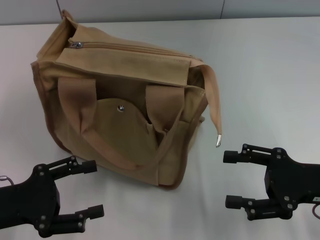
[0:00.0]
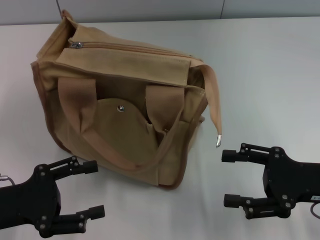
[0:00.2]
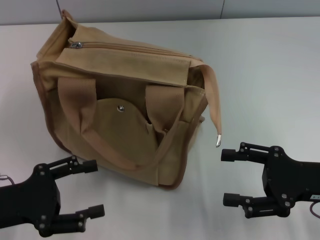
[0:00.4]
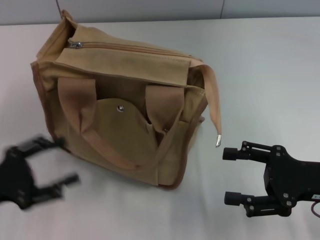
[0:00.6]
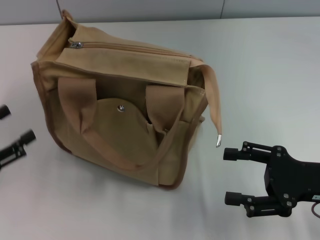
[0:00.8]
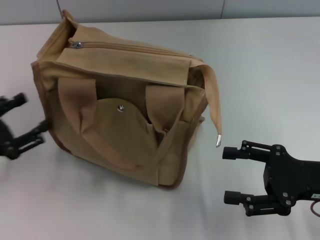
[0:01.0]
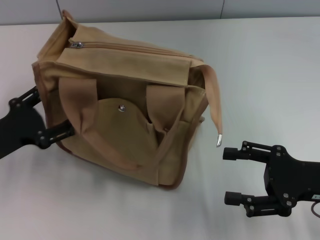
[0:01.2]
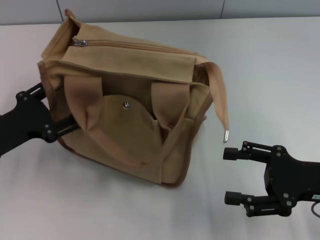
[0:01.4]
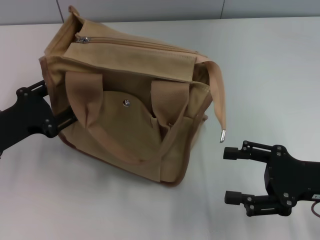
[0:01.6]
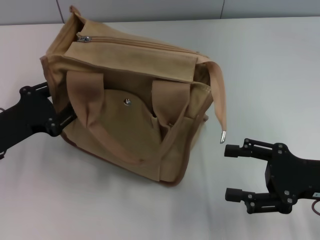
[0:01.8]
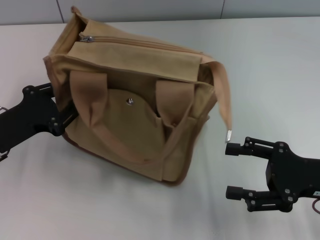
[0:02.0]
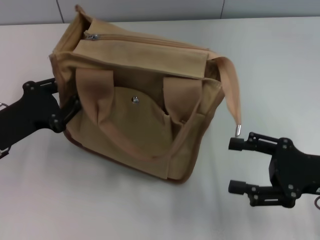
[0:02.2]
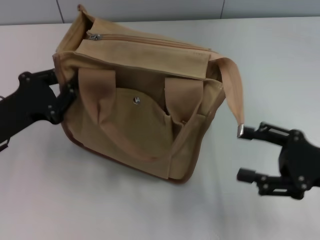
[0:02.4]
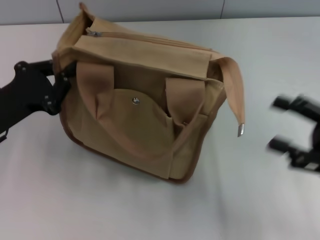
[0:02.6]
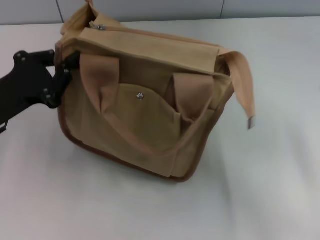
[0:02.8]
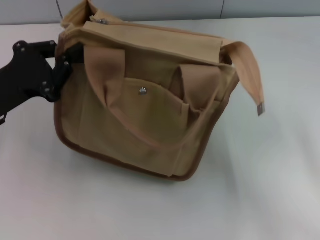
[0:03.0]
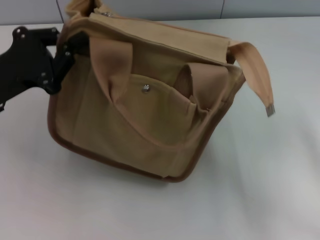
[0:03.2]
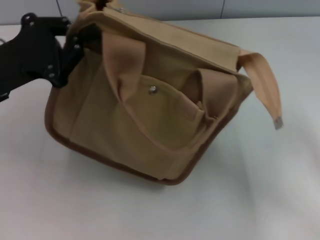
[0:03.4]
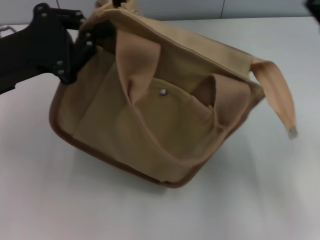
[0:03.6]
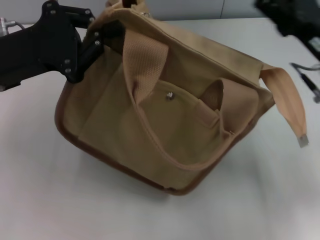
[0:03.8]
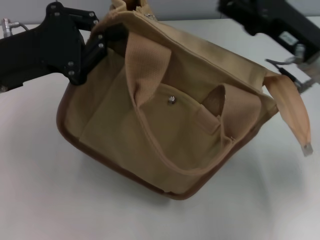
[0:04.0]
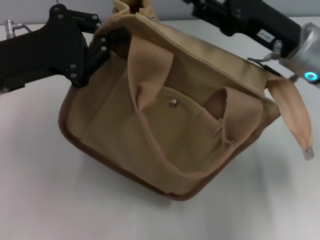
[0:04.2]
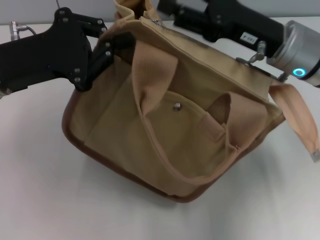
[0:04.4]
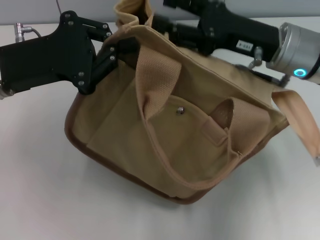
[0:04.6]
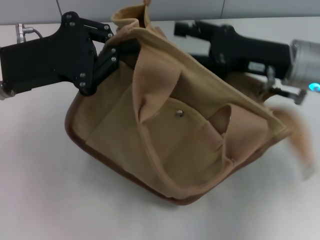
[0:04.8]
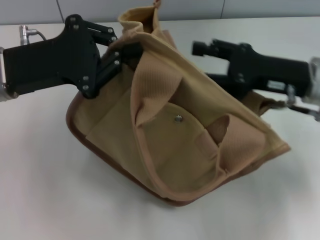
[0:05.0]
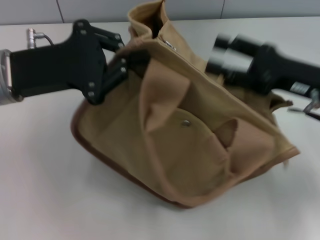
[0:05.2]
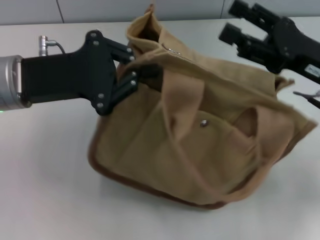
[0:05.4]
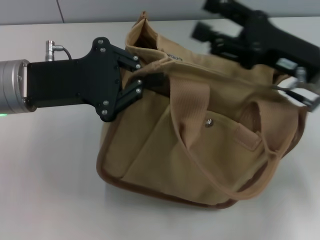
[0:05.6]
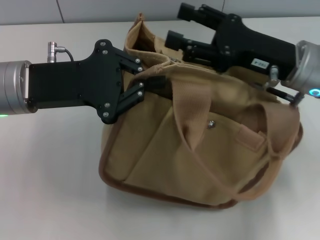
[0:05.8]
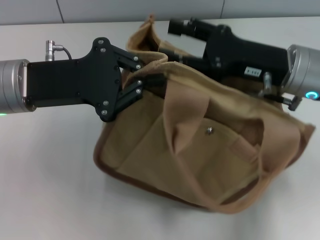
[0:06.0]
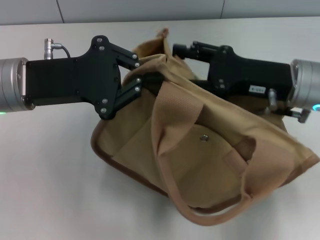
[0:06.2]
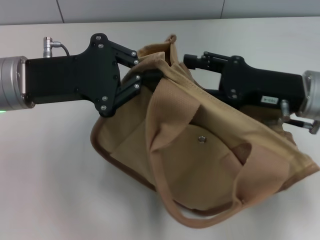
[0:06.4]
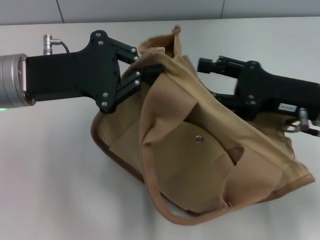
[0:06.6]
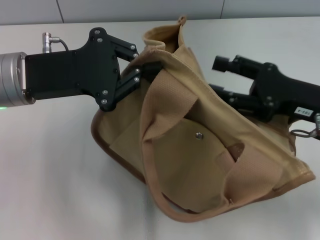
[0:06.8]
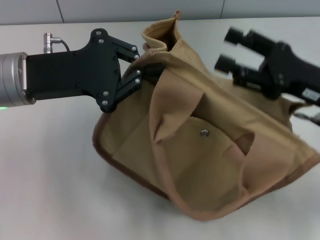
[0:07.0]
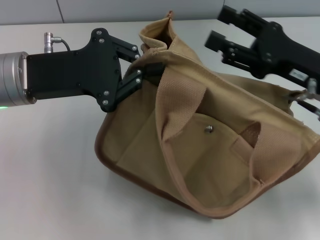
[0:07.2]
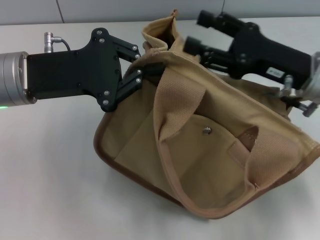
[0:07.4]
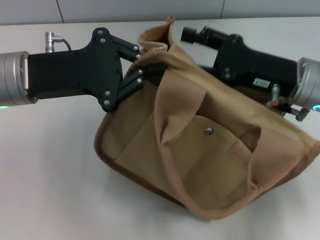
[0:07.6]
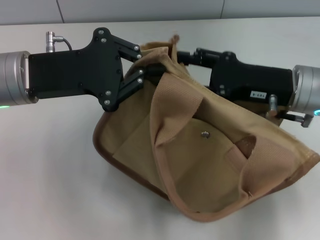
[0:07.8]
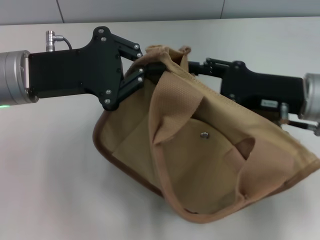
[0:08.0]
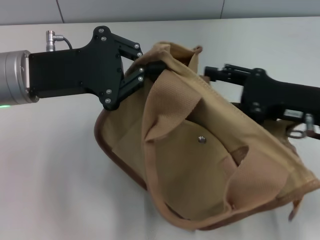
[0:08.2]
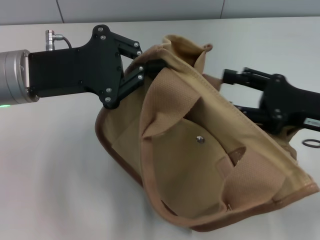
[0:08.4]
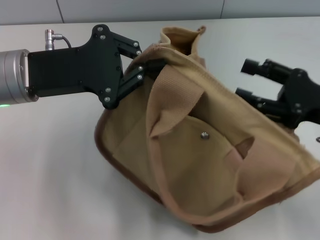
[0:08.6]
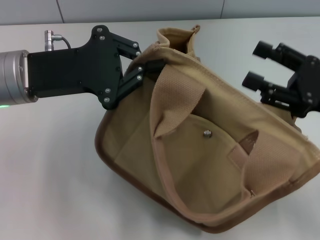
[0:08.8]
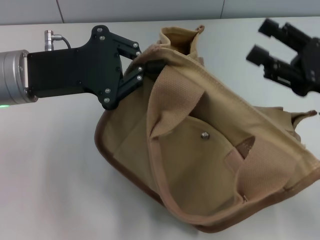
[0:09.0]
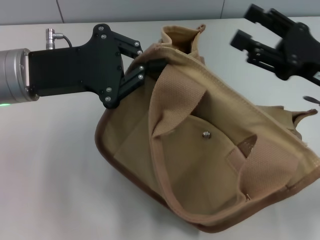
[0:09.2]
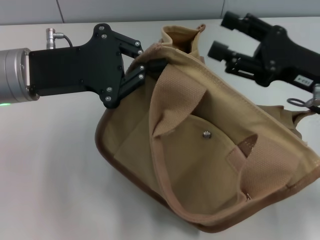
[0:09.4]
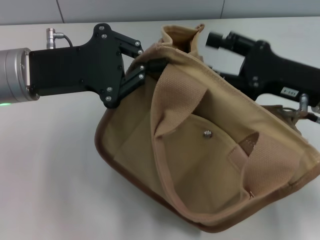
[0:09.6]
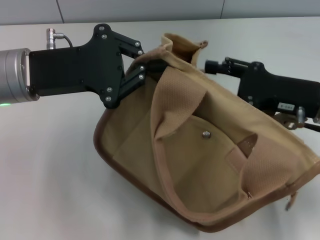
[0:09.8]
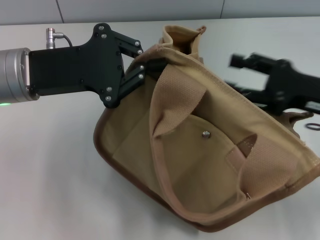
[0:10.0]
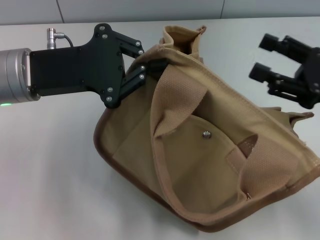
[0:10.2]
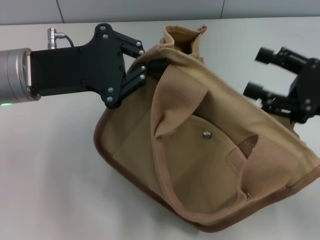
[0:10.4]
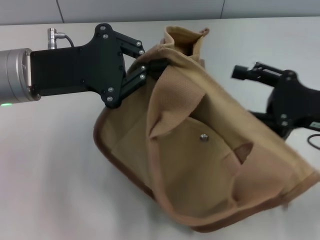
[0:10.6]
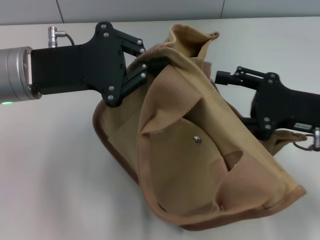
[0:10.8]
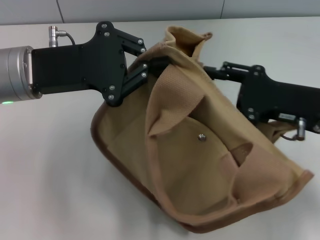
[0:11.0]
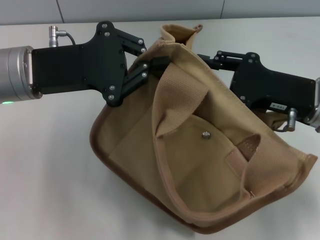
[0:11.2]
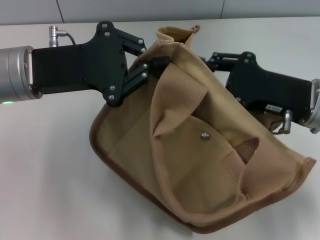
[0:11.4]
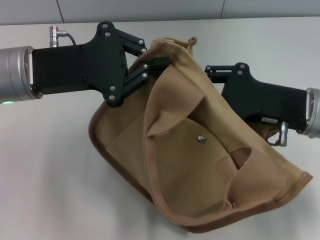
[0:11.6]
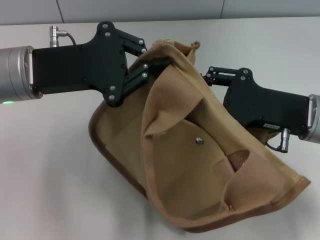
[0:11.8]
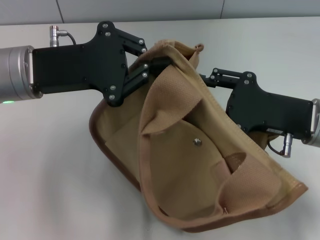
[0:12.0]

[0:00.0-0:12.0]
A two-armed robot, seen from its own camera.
0:00.0 to 0:01.6: The left gripper shifts roughly 5 cm forward.
0:01.6 to 0:03.0: The right gripper is displaced to the right by roughly 5 cm. The left gripper changes place by about 5 cm, and closes.
0:03.0 to 0:04.4: The left gripper goes roughly 5 cm upward, while the right gripper heads to the left and forward, covering some 20 cm.
0:07.6 to 0:09.0: The right gripper heads to the right, covering approximately 5 cm.
0:10.4 to 0:12.0: The right gripper heads to the left, covering roughly 5 cm.

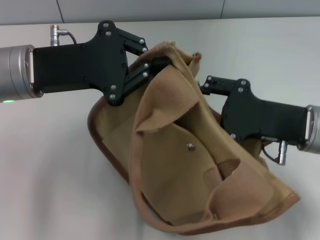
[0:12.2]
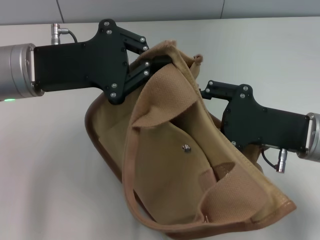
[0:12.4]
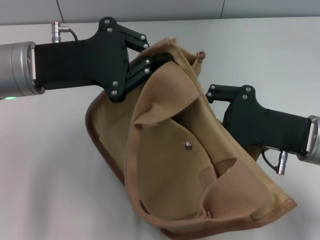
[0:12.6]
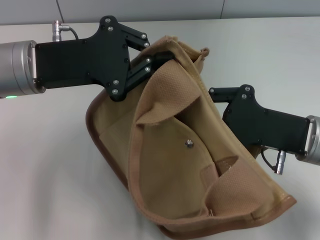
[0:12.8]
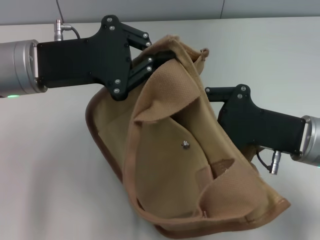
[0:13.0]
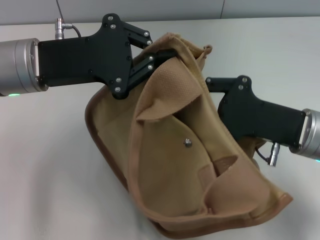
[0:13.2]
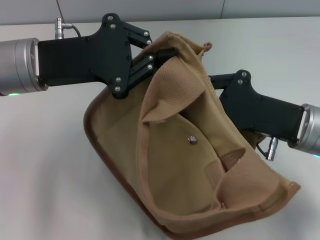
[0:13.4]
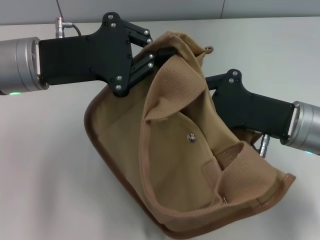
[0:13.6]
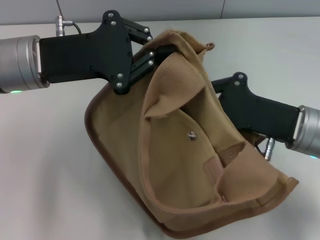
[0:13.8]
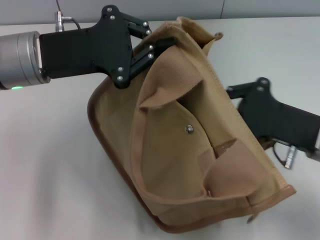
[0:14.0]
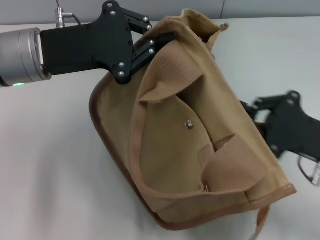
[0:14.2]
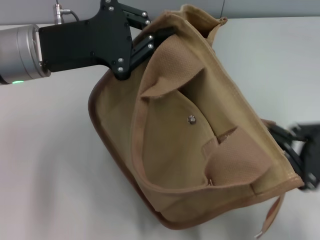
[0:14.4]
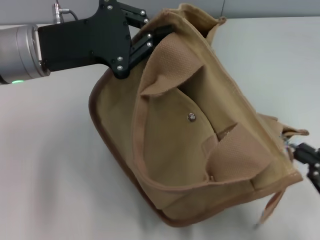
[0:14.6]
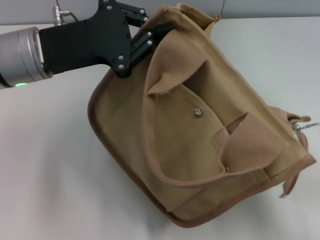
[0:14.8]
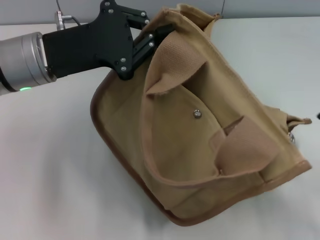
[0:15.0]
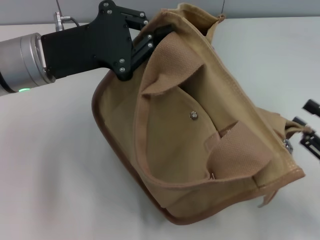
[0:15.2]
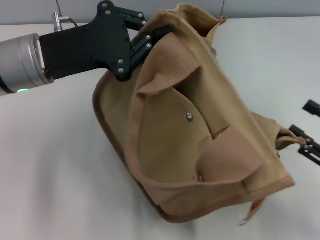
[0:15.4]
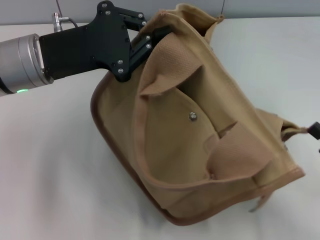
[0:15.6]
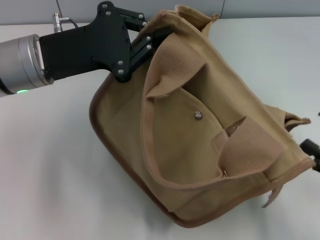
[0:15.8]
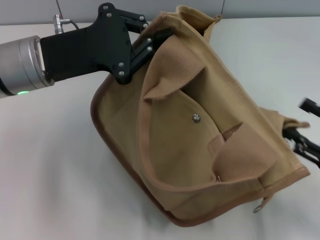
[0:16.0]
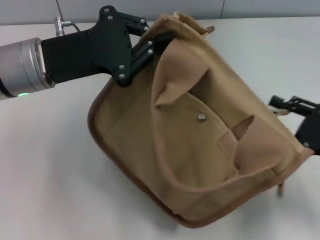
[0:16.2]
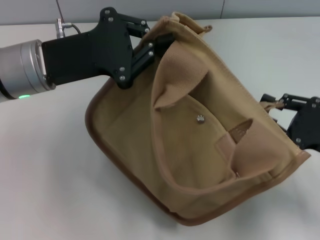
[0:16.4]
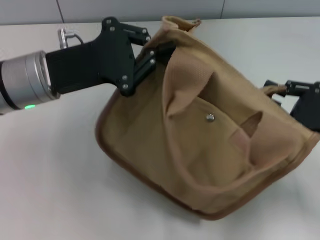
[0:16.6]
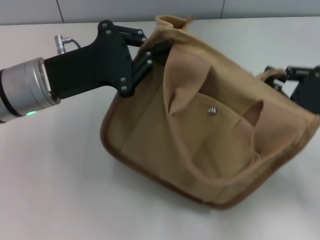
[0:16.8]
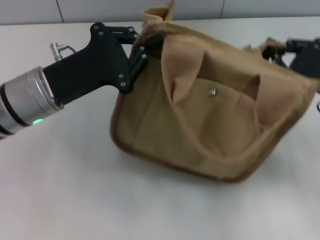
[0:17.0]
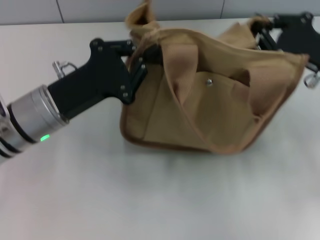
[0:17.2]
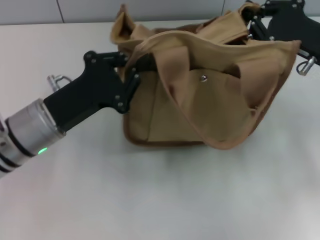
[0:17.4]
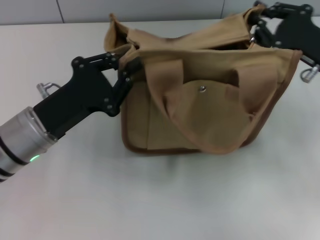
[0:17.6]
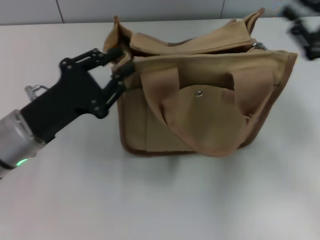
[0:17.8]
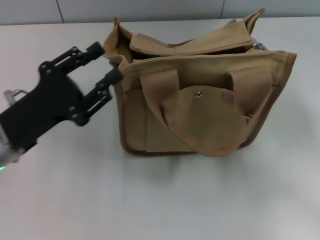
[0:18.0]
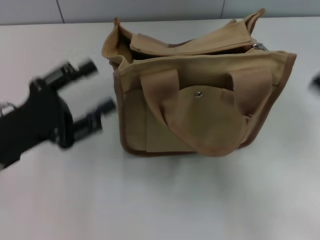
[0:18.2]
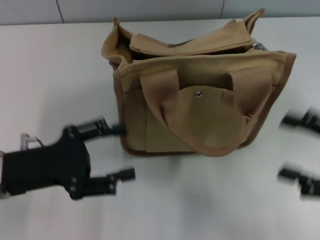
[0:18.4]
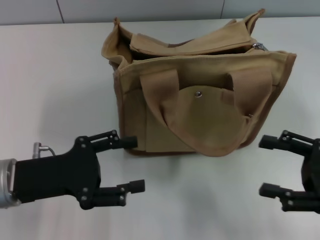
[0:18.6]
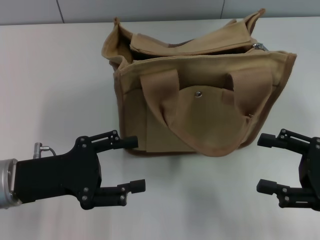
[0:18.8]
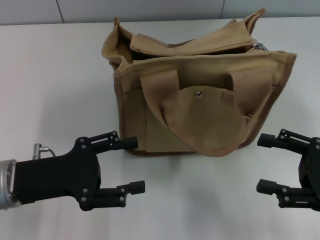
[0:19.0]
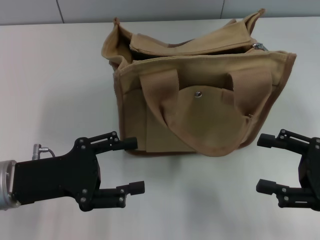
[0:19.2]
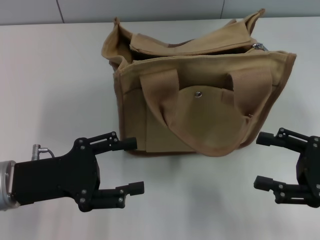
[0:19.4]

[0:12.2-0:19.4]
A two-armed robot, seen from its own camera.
Step, 0:12.2 to 0:14.8: Pull open the zipper with your right hand.
Step, 0:15.2 to 0:17.8: Grab the bag with your left hand.
0:12.2 to 0:13.6: The right gripper closes its fingers.
0:13.6 to 0:15.0: The right gripper moves to the right and backward, approximately 20 cm.
0:15.0 to 0:16.6: The right gripper is displaced forward by some 10 cm, and opens, then closes once more.
0:16.6 to 0:18.0: The right gripper moves some 10 cm forward and comes back. Meanwhile the left gripper heads backward and downward, covering approximately 10 cm, and opens its fingers.
0:18.0 to 0:19.4: The right gripper shifts by approximately 5 cm, and opens. Meanwhile the left gripper opens.
